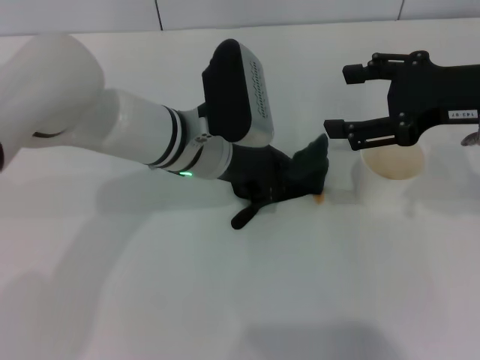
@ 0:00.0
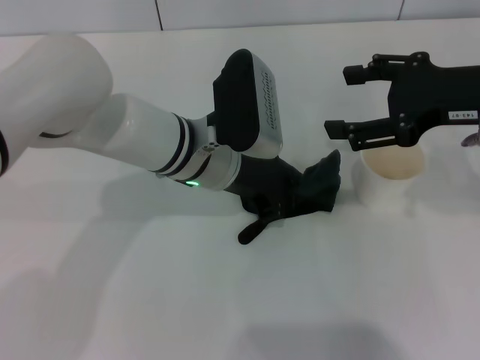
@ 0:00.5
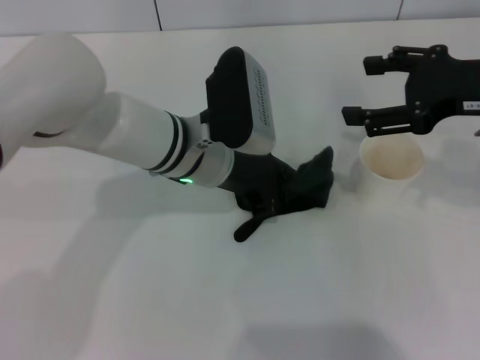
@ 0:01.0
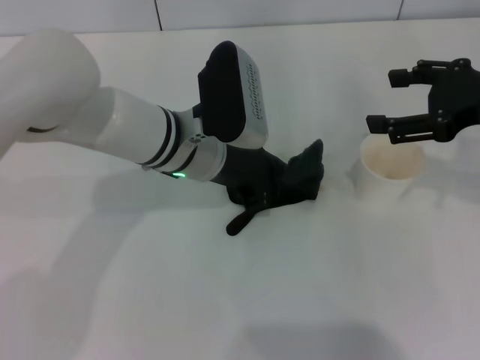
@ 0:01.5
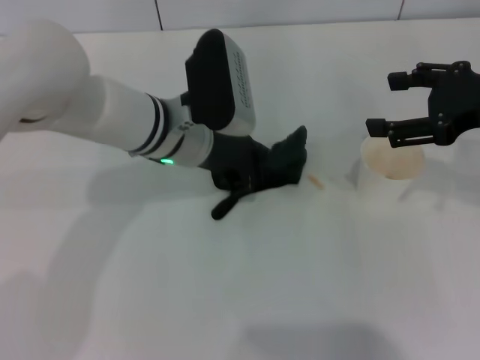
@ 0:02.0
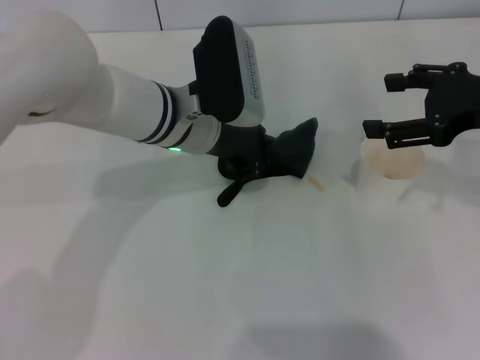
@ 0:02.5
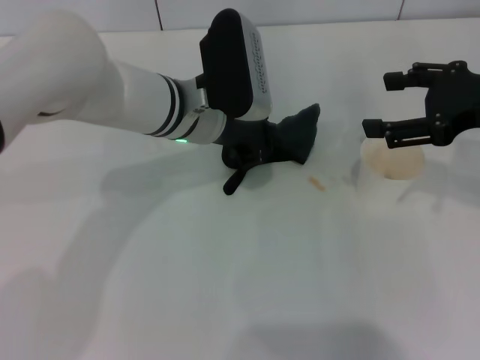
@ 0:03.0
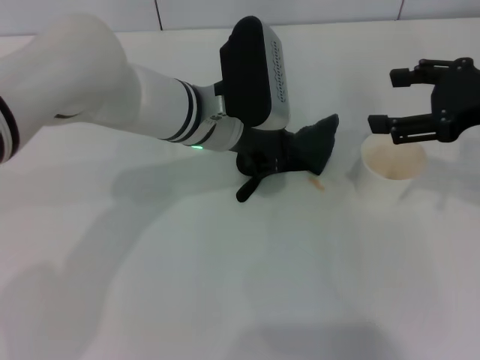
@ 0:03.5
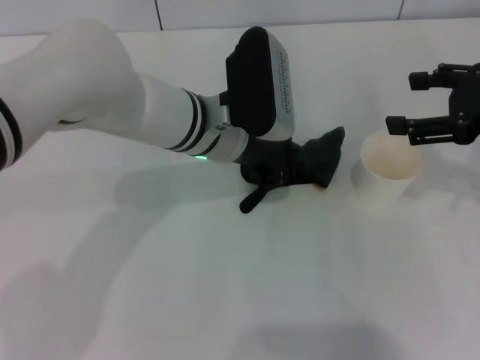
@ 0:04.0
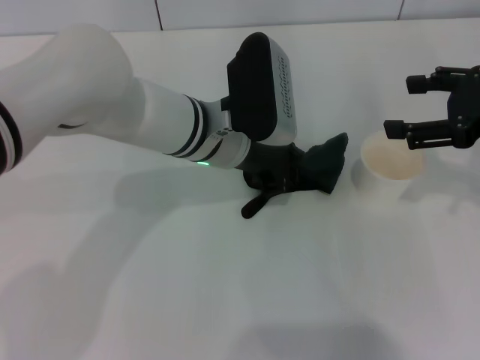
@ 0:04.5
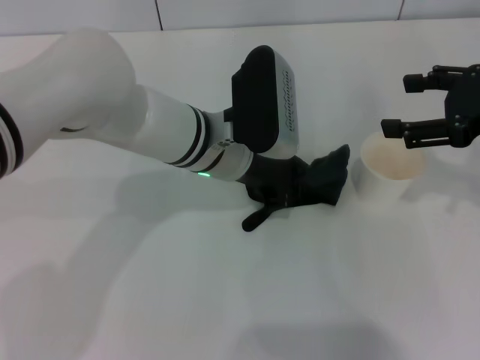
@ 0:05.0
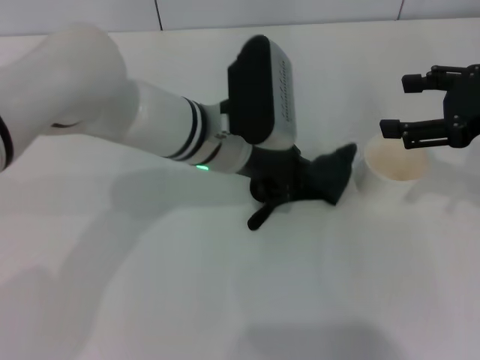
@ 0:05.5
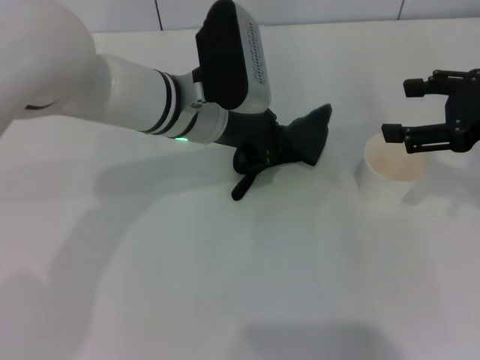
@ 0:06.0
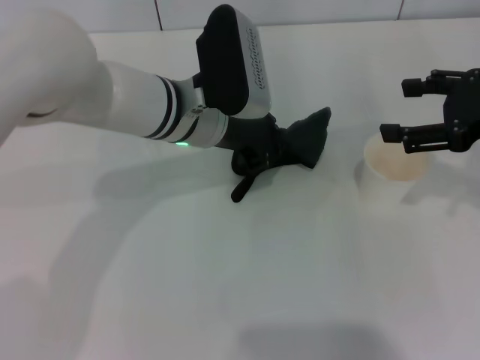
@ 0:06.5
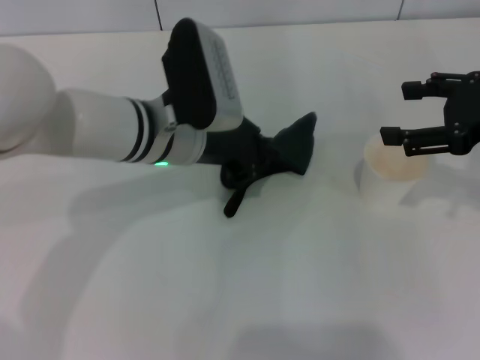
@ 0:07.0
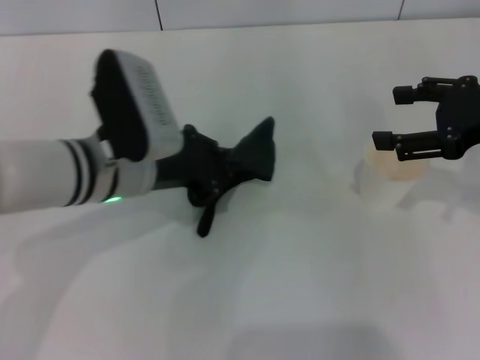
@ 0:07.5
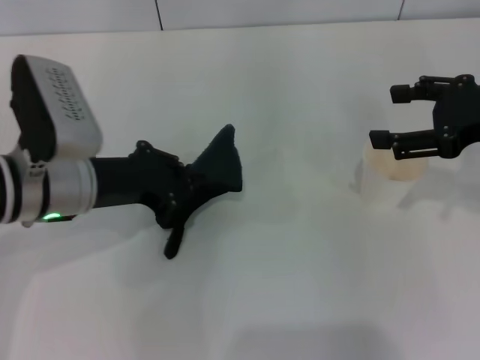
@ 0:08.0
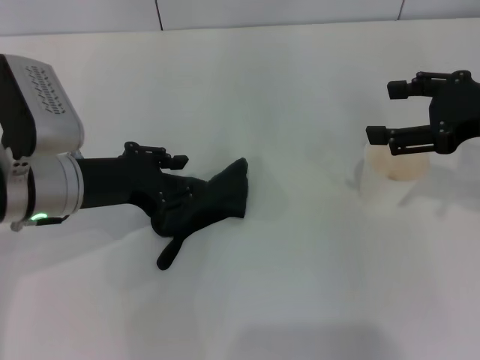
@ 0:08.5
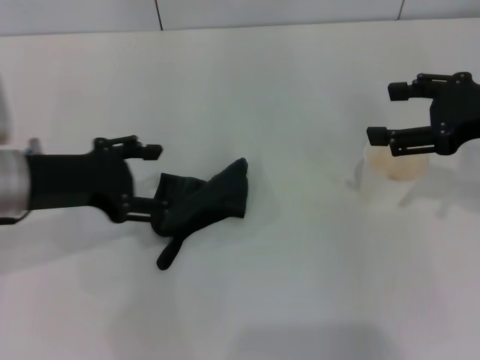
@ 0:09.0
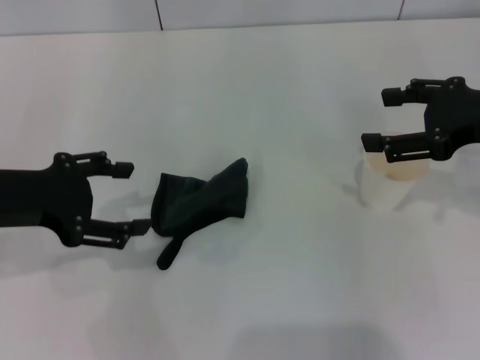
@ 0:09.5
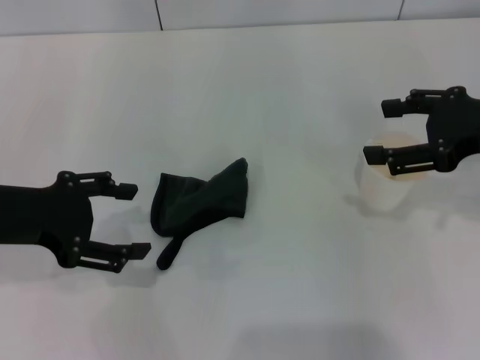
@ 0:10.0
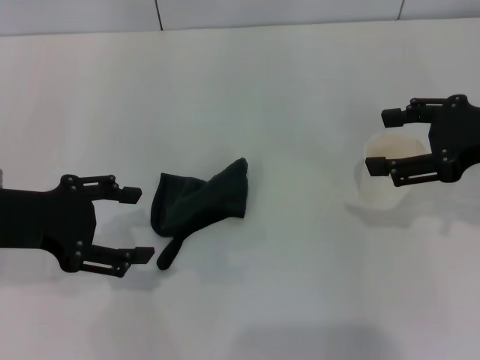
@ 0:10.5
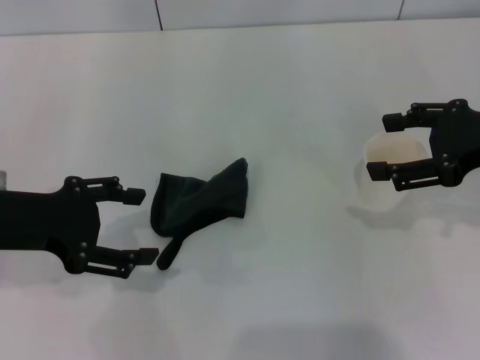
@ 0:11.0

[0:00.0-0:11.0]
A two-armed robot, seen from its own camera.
Step, 0:00.0 to 0:07.5: Wipe the stains off the table with the left gripper.
Step, 0:08.0 to 0:08.5: Place the rag on the table with the left gripper.
0:00.0 to 0:05.5: The grippers stay close to where they were, moving slightly.
0:05.5 to 0:07.5: The left gripper moves to the left, roughly 10 cm.
0:07.5 to 0:09.0: The left gripper travels to the left by some 10 cm, and opens up.
0:09.0 to 0:11.0: The grippers make only small movements.

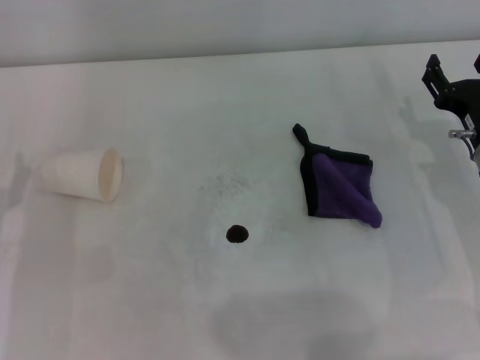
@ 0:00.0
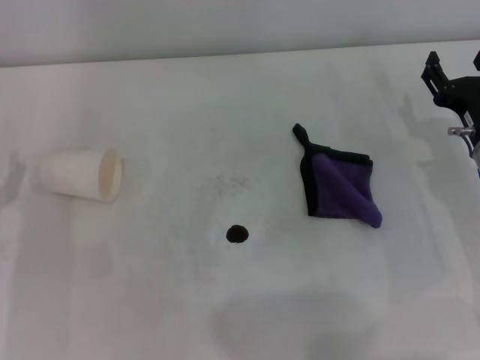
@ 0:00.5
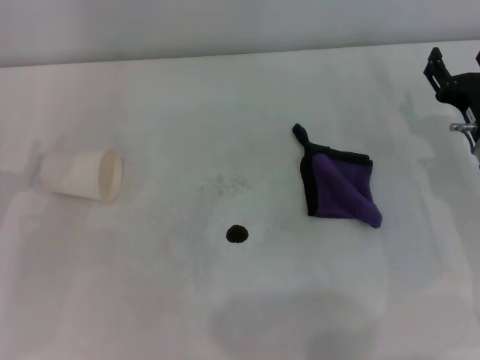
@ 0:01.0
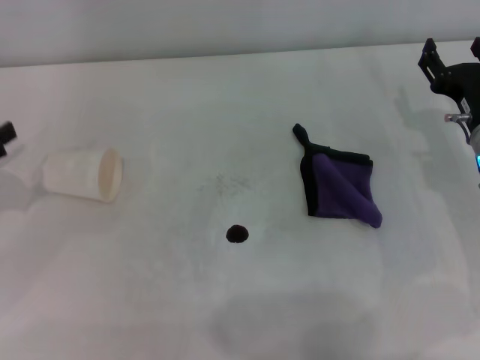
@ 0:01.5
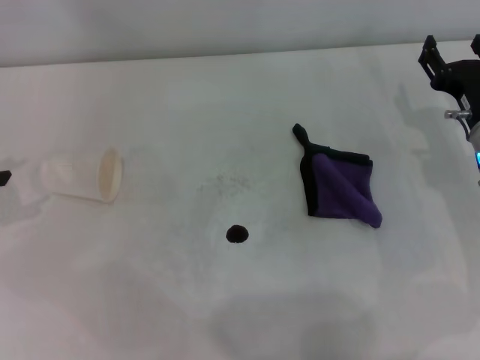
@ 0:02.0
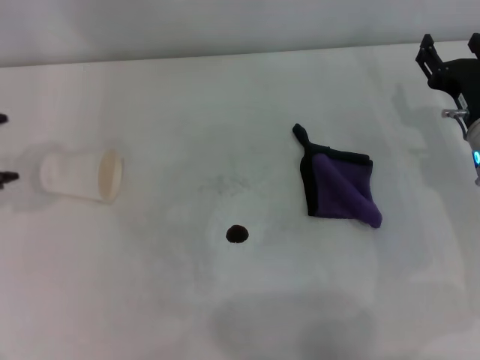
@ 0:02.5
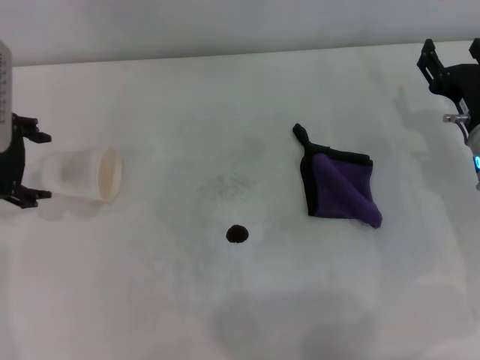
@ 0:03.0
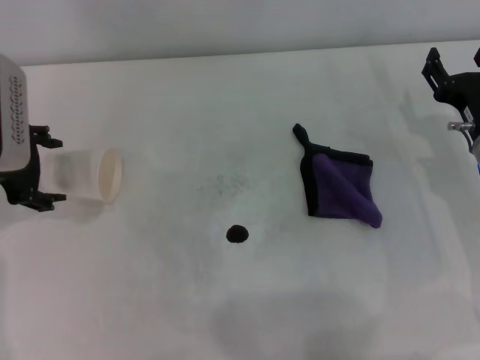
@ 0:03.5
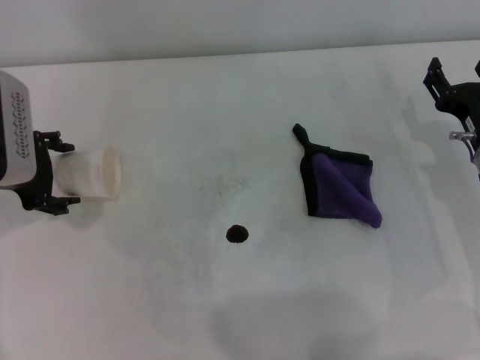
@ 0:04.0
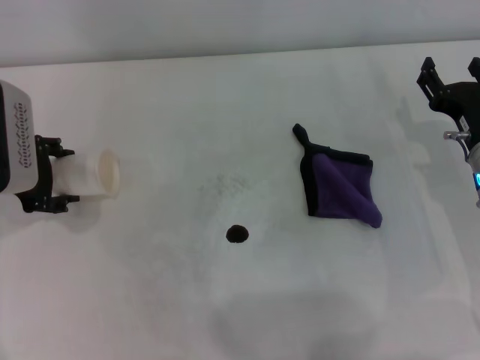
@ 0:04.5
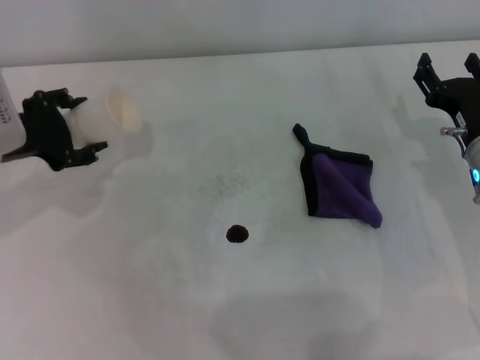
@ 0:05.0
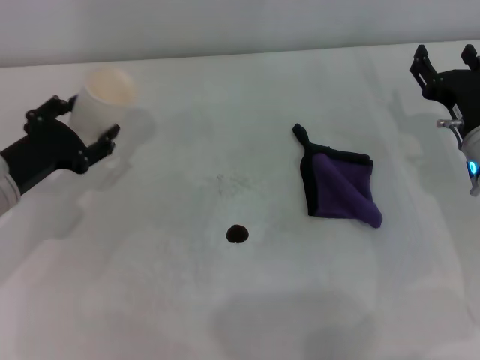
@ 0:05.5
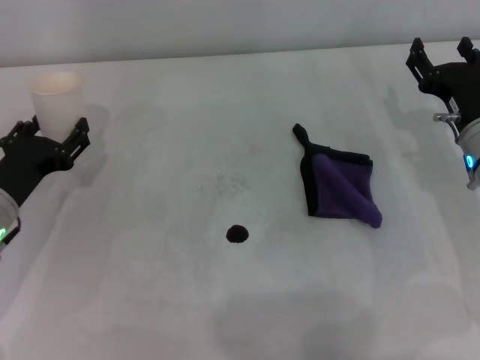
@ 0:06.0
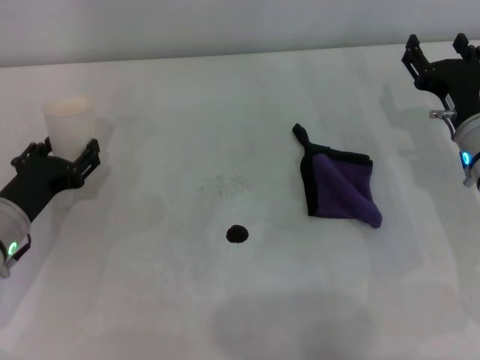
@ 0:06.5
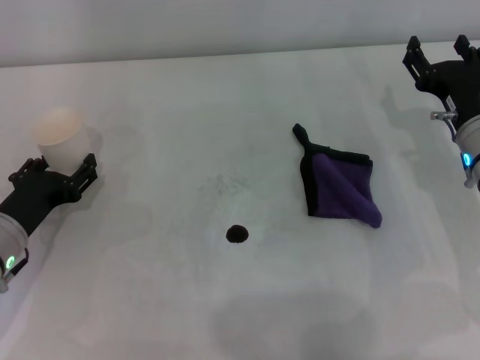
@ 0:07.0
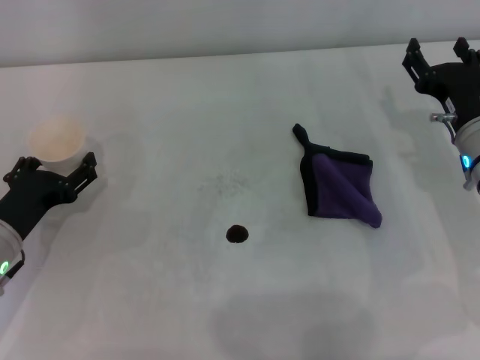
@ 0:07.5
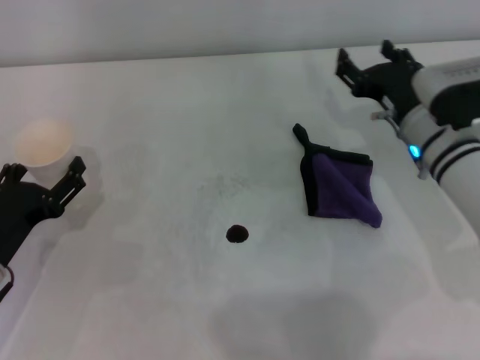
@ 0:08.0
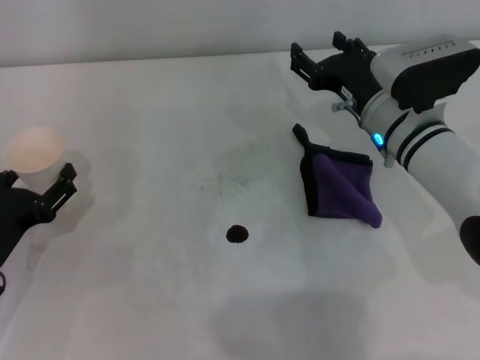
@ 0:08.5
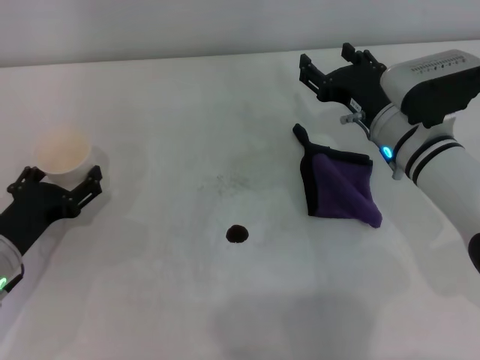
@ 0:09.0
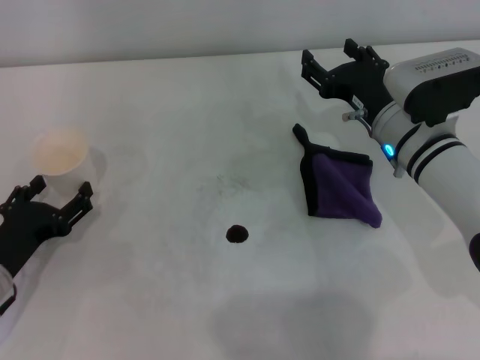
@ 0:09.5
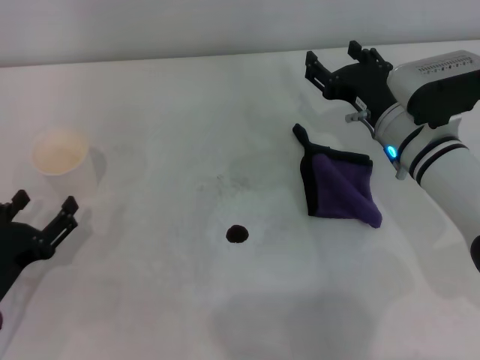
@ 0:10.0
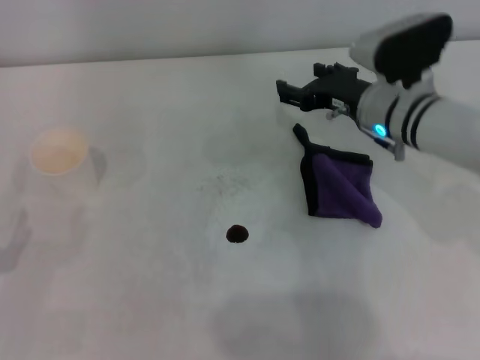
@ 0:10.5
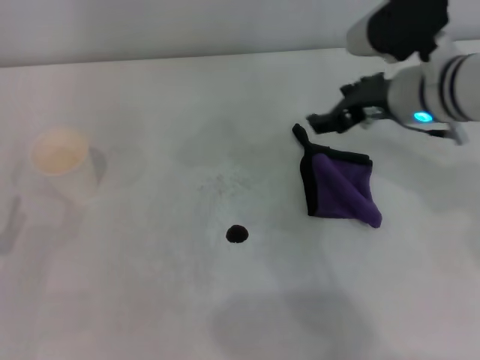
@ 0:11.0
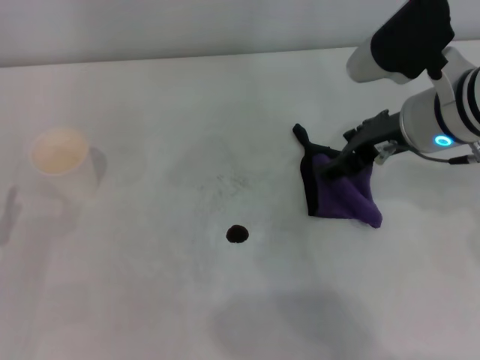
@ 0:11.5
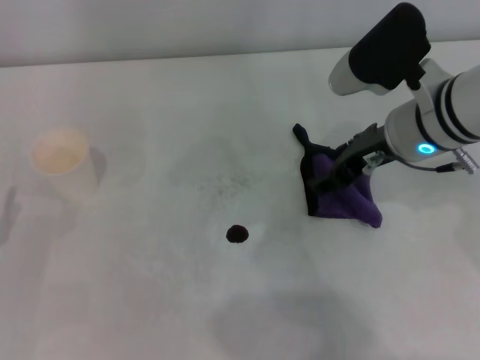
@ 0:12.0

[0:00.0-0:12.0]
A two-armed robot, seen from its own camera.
Step, 0:00.0 to 0:04.0: Grasp the paper cup with the left gripper.
Step, 0:04.5 to 0:09.0: Stand the paper cup upright with the left gripper.
0:02.0 to 0:04.0: The left gripper heads to the right, covering roughly 10 cm, and closes up.
0:04.0 to 0:06.0: The left gripper goes some 10 cm downward, and closes.
0:06.0 to 0:08.0: The right gripper shifts by roughly 5 cm; the left gripper travels backward by roughly 5 cm, and opens.
0:08.0 to 0:10.0: The grippers move only a little.
0:10.0 to 0:12.0: The right gripper travels upward by roughly 10 cm.

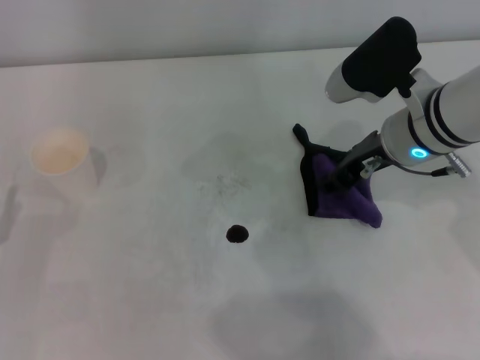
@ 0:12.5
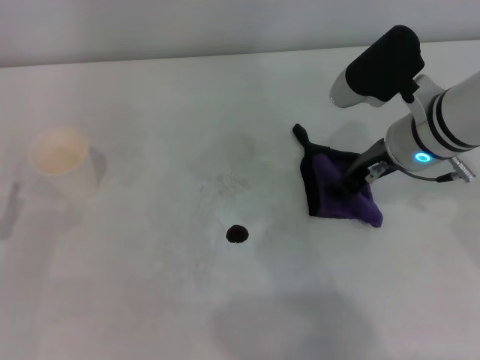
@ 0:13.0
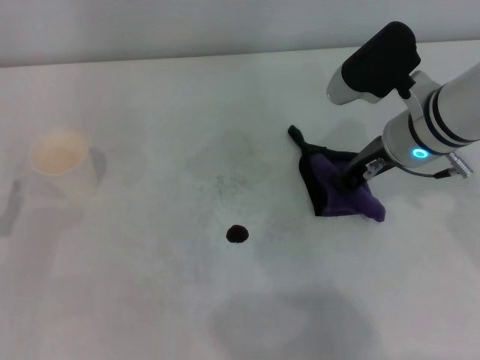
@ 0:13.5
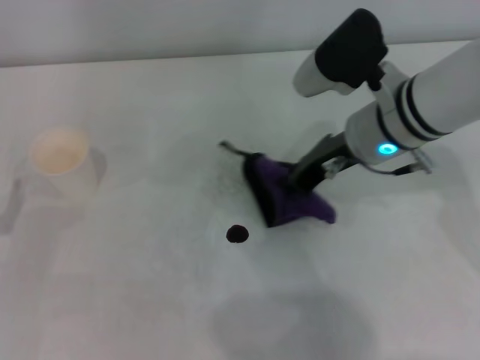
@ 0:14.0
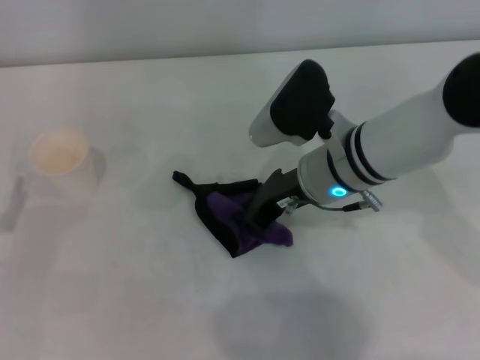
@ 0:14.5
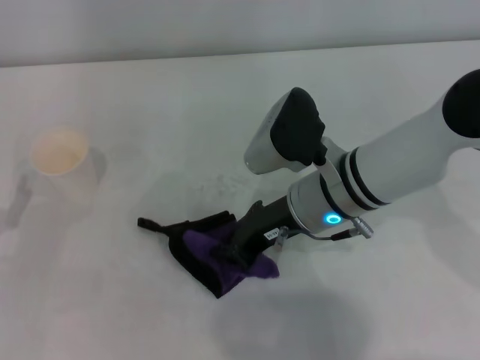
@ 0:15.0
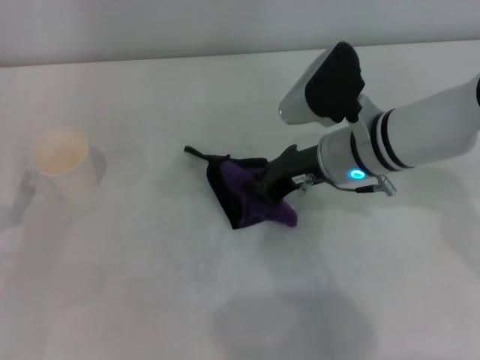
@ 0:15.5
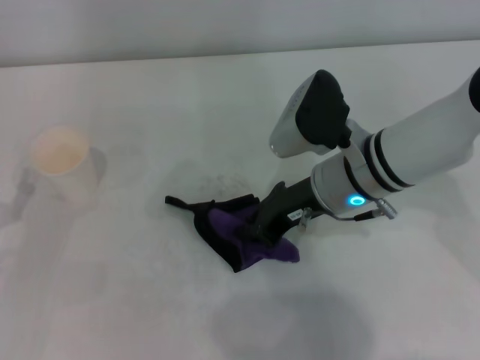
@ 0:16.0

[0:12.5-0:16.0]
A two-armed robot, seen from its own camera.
0:12.5 to 0:14.5: The right gripper moves to the left, roughly 5 cm, and closes its fingers.
0:14.5 to 0:16.0: The grippers make only small movements.
